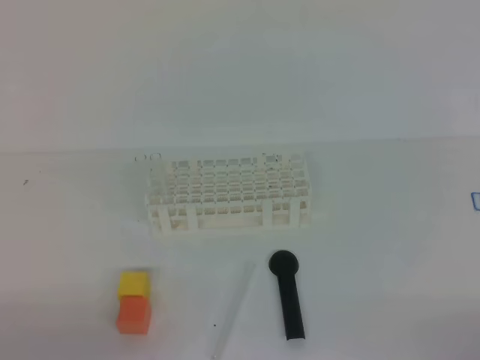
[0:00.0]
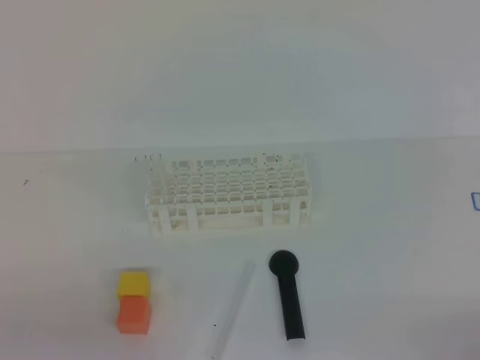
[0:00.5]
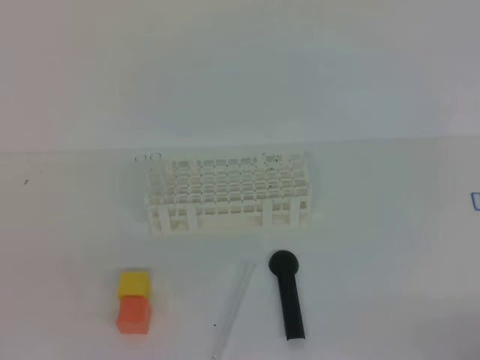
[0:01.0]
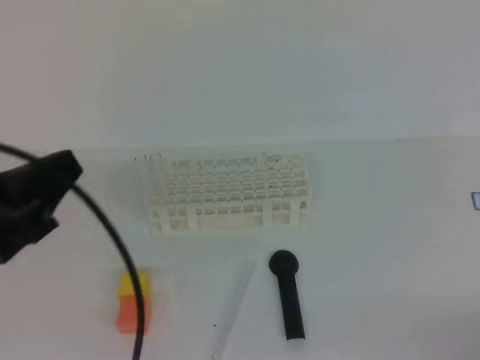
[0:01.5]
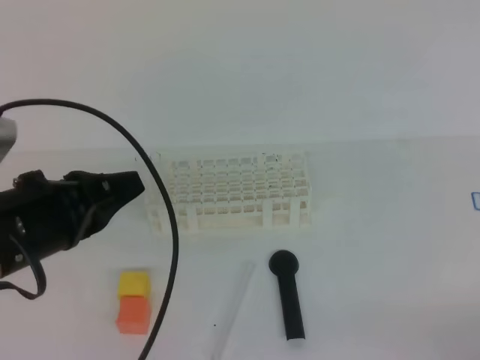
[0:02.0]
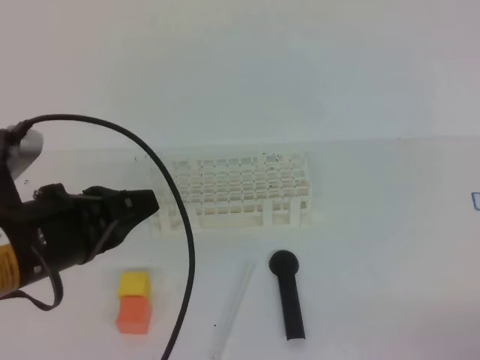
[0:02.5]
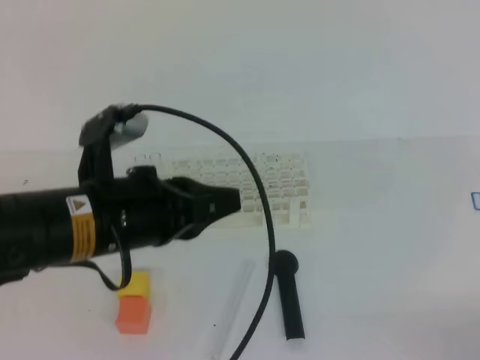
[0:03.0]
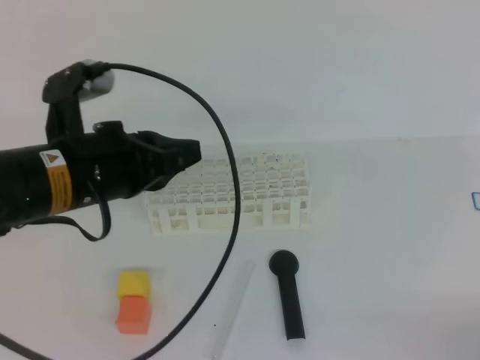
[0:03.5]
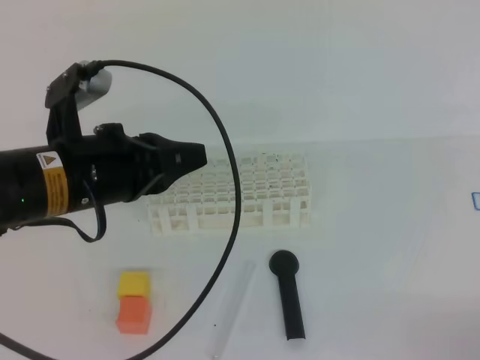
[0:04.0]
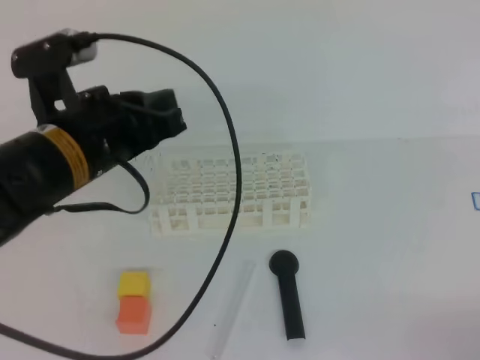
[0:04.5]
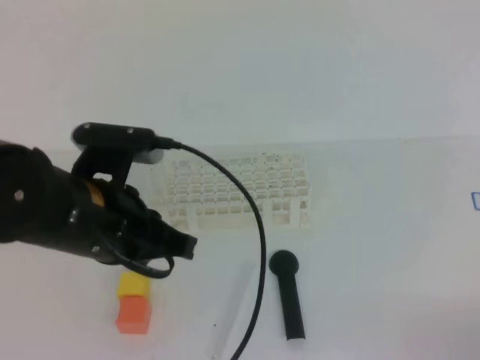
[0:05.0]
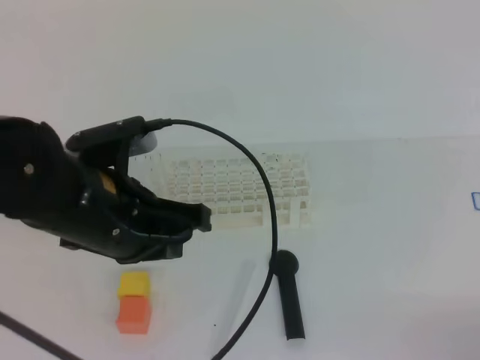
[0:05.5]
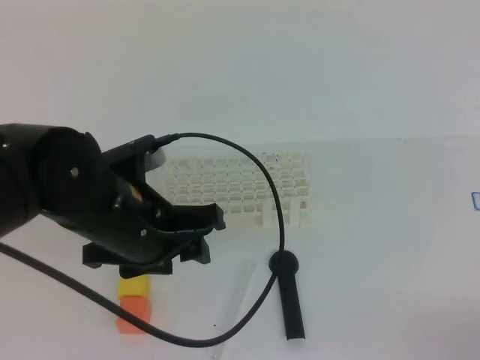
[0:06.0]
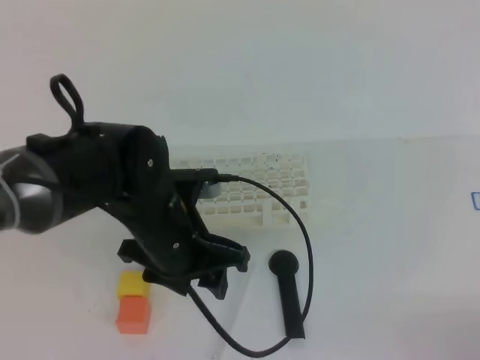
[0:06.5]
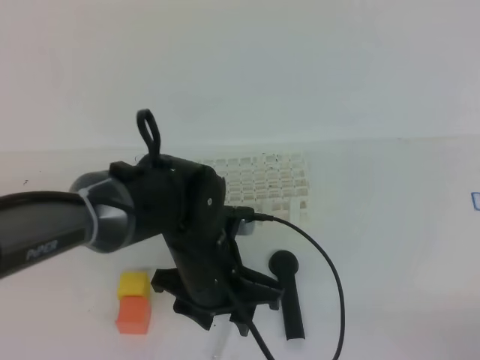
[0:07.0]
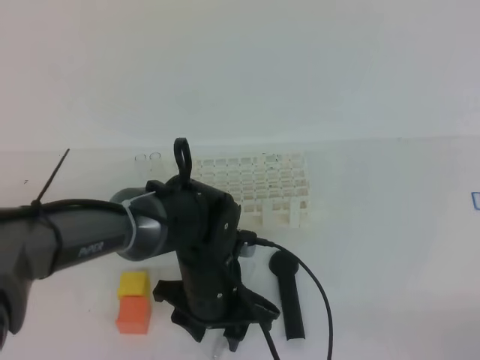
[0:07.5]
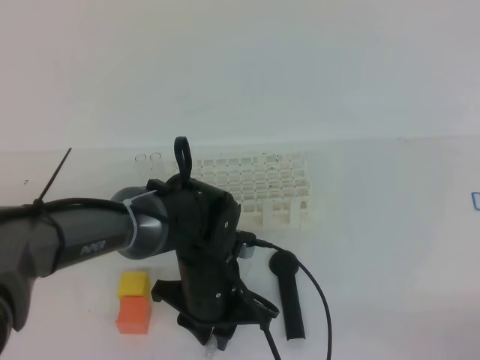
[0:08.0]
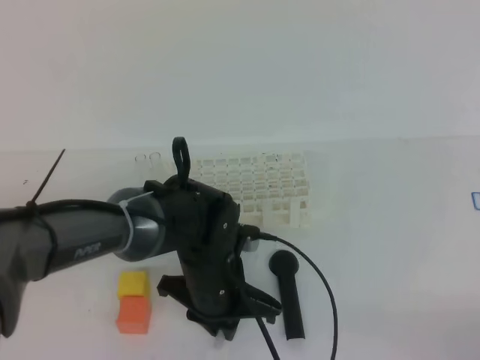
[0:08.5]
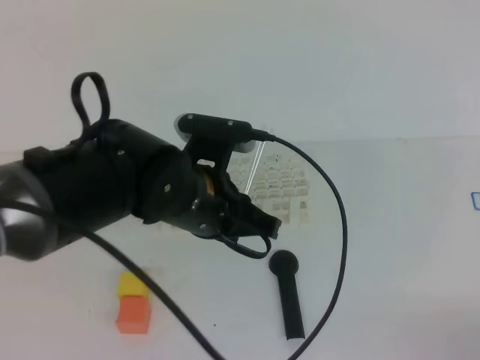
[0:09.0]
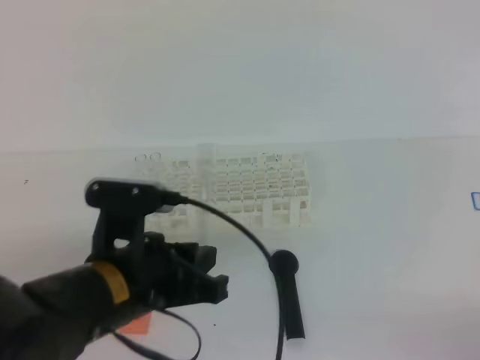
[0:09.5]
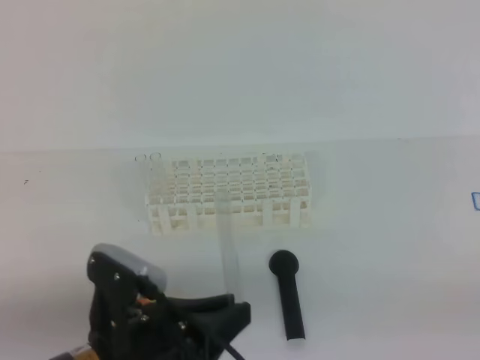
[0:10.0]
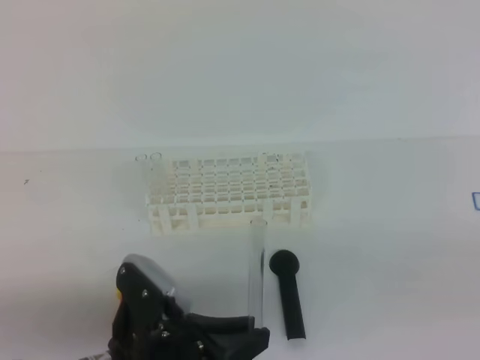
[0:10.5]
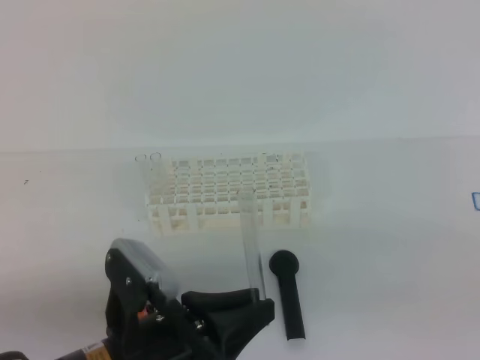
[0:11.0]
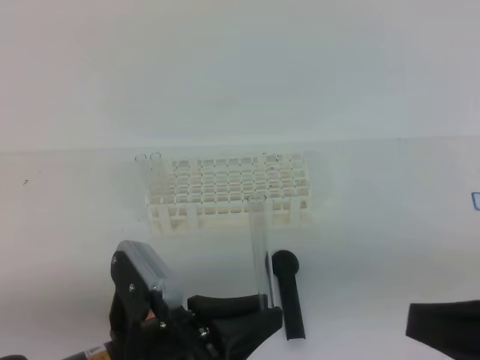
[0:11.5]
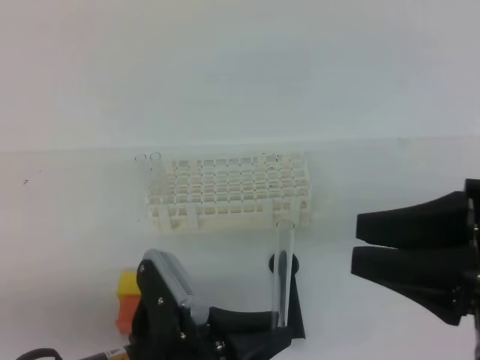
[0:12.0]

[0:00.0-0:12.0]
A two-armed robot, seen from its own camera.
0:00.0 to 0:02.0: The left gripper travels forward, upward and to the right by approximately 20 cm.
0:02.0 to 0:04.0: The left gripper heads to the right and forward, covering roughly 5 cm.
0:04.0 to 0:06.0: The left gripper opens.
0:06.0 to 0:08.0: The left gripper moves downward and to the right, some 15 cm, and closes its fingers.
0:08.0 to 0:10.0: The left gripper is displaced backward, to the left and upward by approximately 15 cm, and closes its fingers.
0:10.0 to 0:12.0: The right gripper moves to the left, forward and upward, some 20 cm, and opens.

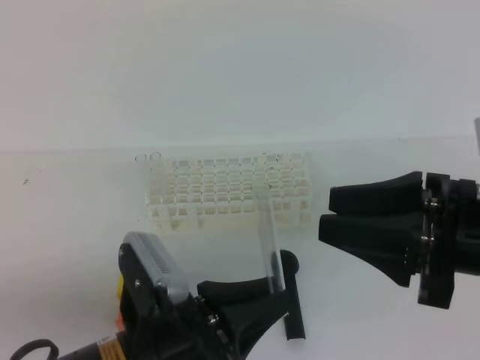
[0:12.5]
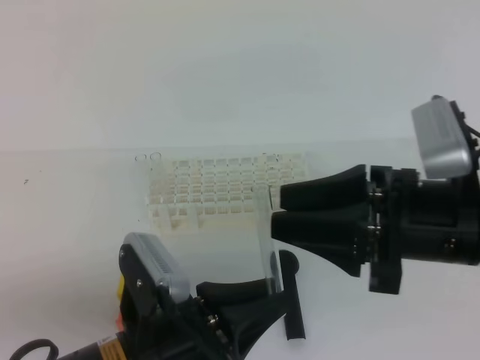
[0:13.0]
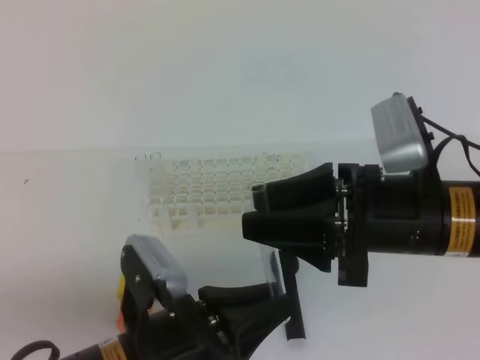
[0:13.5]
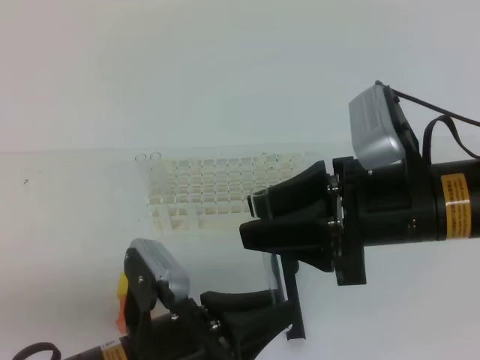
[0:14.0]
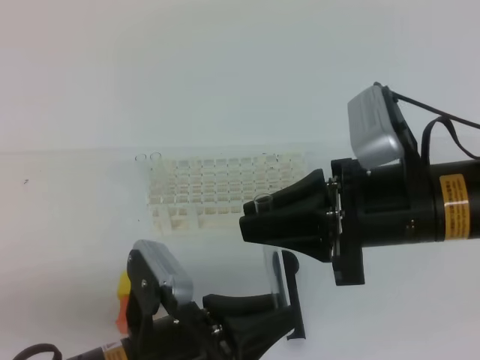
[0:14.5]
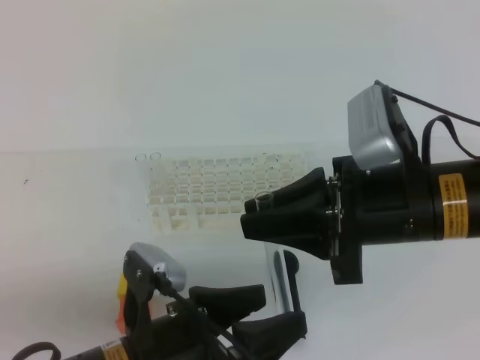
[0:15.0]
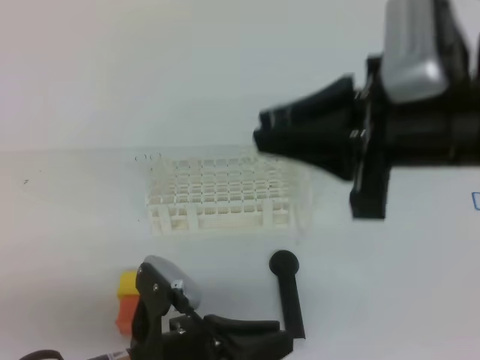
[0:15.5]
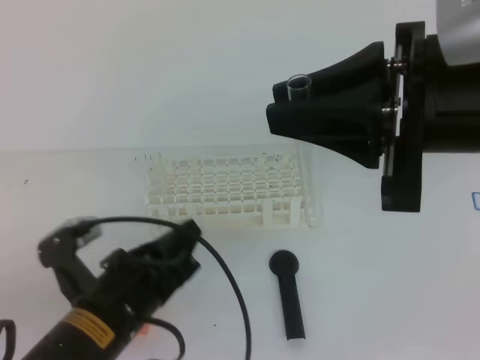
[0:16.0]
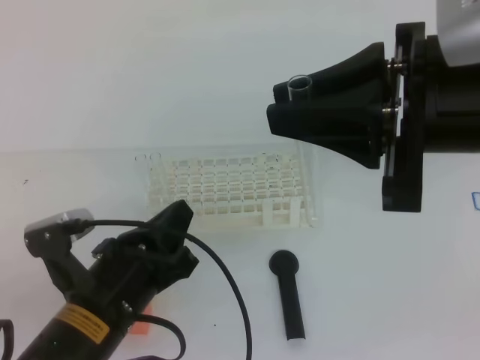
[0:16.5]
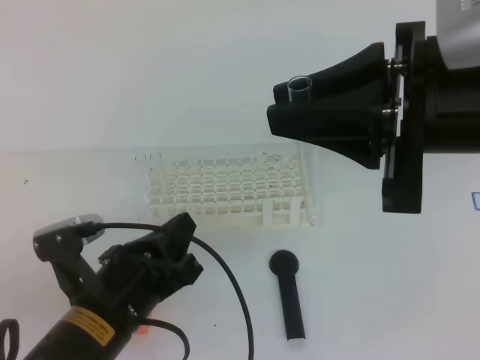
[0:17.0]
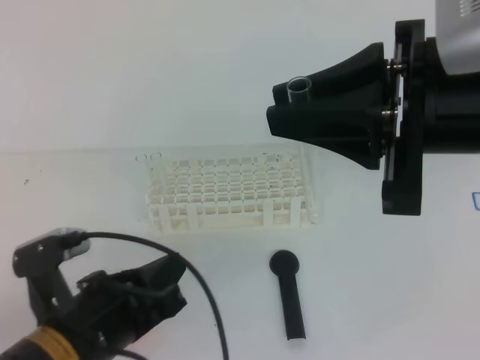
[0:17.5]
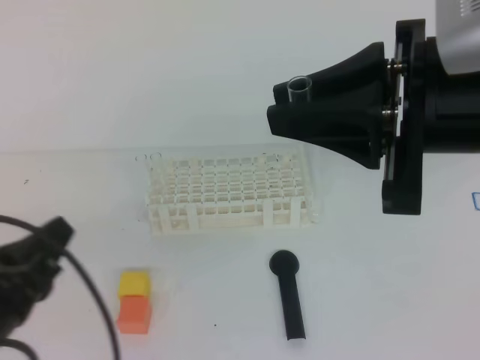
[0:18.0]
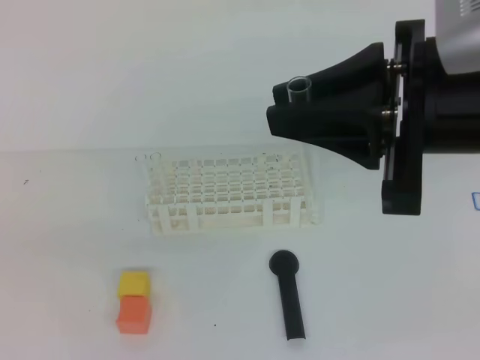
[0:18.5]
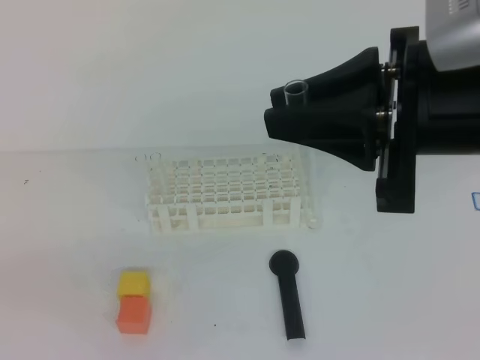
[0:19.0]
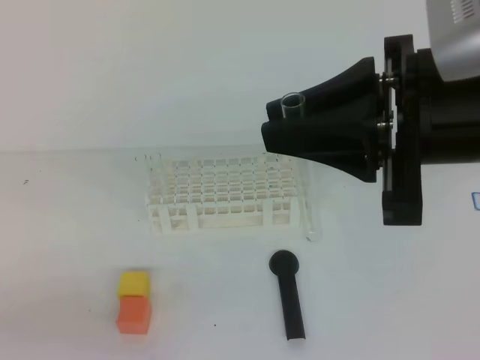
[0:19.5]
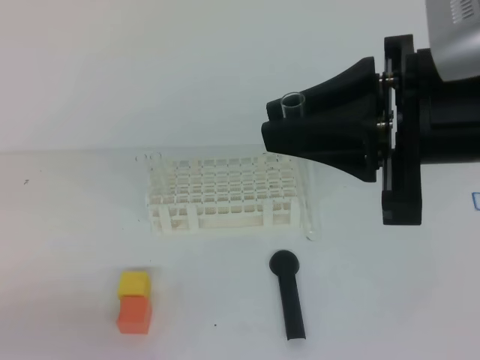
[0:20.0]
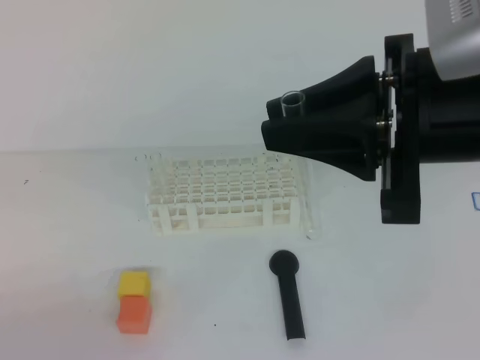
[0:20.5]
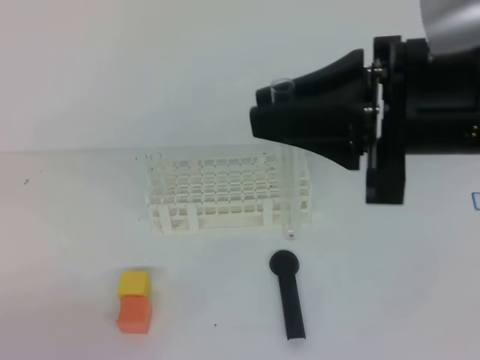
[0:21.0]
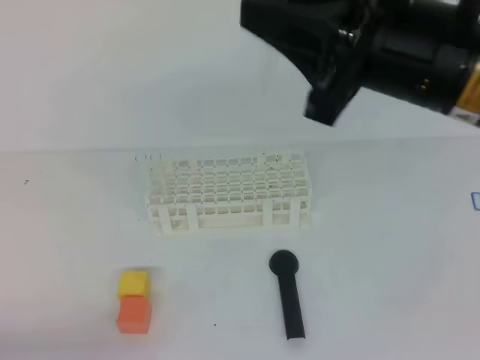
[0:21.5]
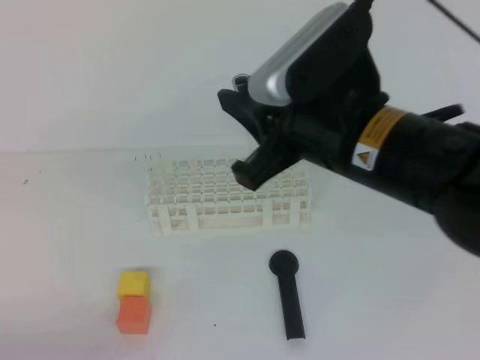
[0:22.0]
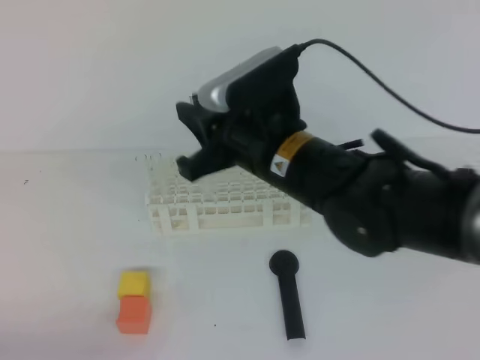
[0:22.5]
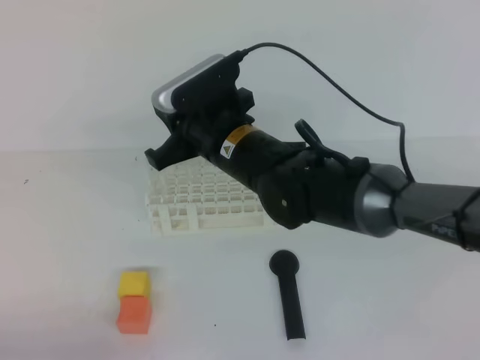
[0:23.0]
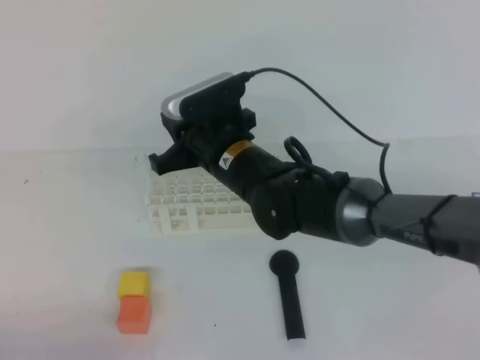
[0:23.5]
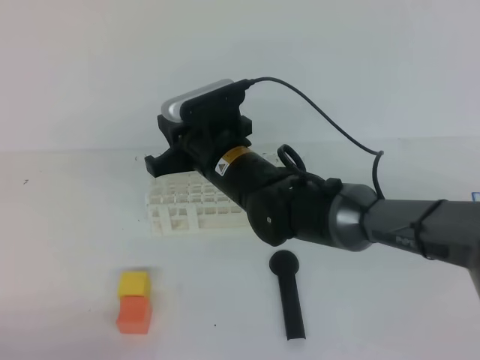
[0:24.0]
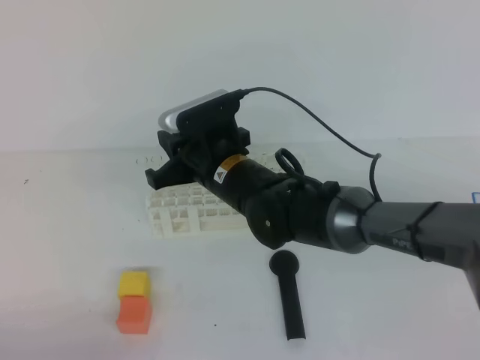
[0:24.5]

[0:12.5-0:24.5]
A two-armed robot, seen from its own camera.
0:12.5 to 0:14.5: The right gripper goes approximately 5 cm to the left, and closes its fingers.
0:14.5 to 0:16.5: The left gripper ends up some 5 cm from where it was, and opens and closes again; the right gripper travels upward by about 10 cm.
0:16.5 to 0:18.5: The left gripper heads to the left, backward and upward, covering about 20 cm.
0:18.5 to 0:20.5: The left gripper goes some 10 cm downward.
0:20.5 to 0:22.5: The right gripper shifts roughly 20 cm to the left, downward and forward.
0:22.5 to 0:24.5: The right gripper goes roughly 15 cm downward, forward and to the left.

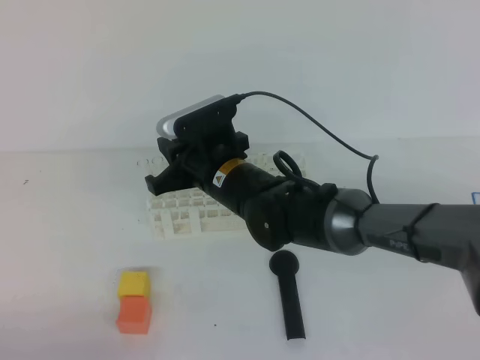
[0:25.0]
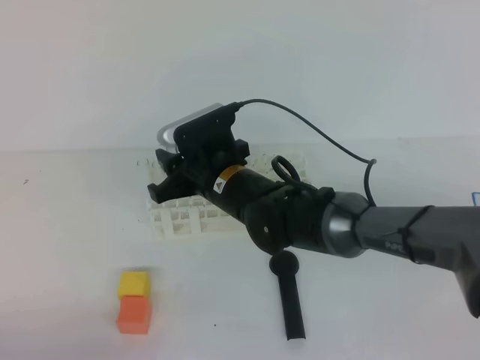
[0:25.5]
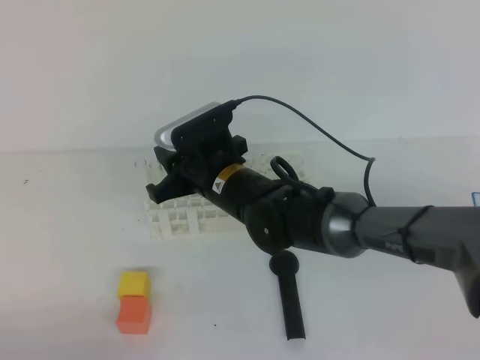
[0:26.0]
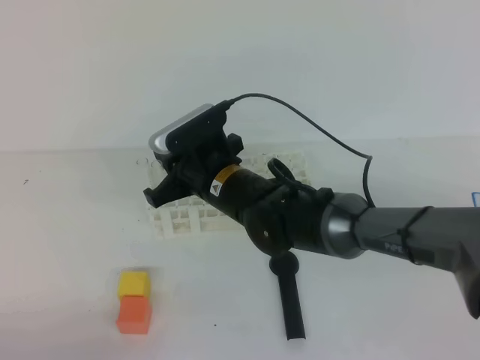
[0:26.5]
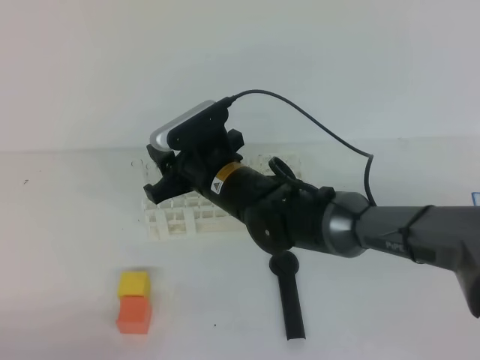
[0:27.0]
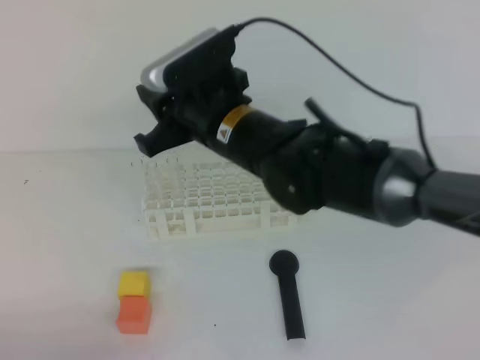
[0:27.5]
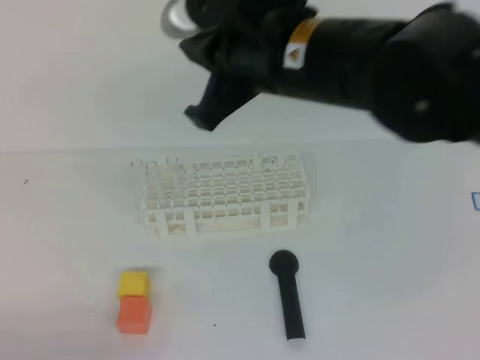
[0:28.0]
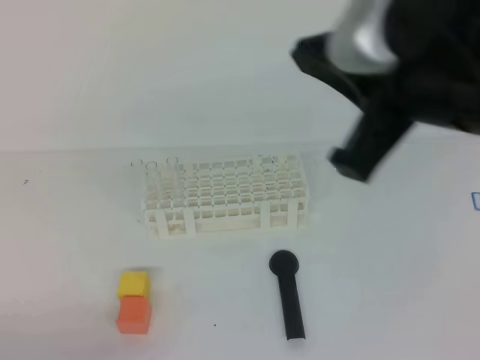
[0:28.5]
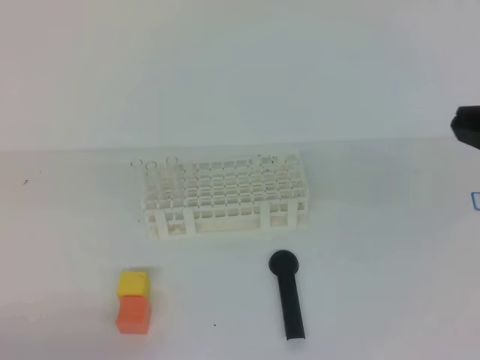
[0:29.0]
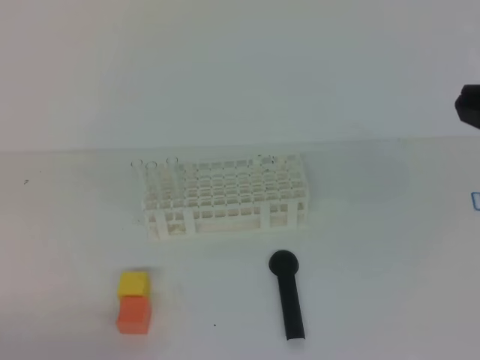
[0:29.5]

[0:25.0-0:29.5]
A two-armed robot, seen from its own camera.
0:25.0 to 0:27.0: The right gripper opens.
0:27.0 to 0:29.5: The right gripper shifts about 40 cm to the right, backward and upward, and closes up.
